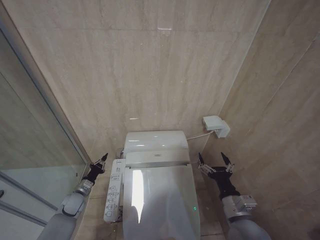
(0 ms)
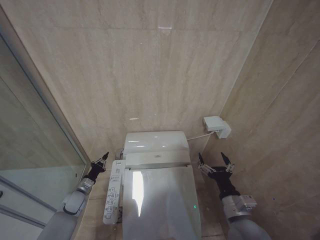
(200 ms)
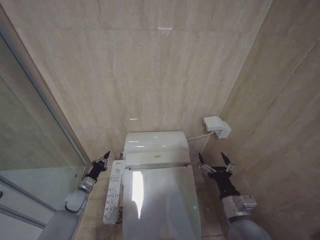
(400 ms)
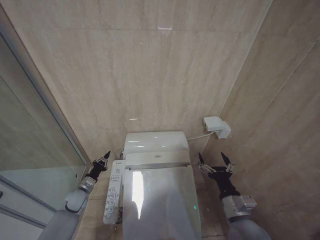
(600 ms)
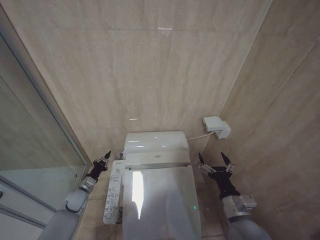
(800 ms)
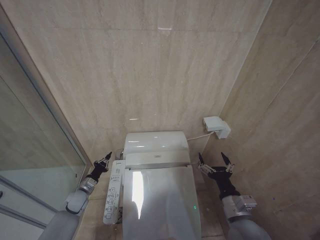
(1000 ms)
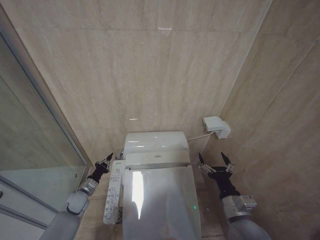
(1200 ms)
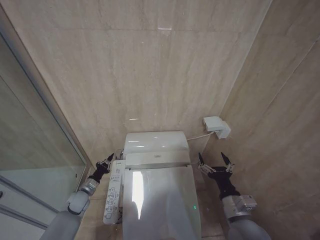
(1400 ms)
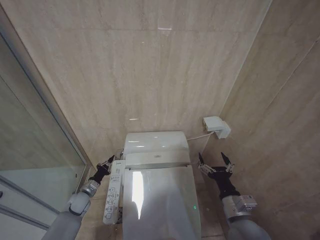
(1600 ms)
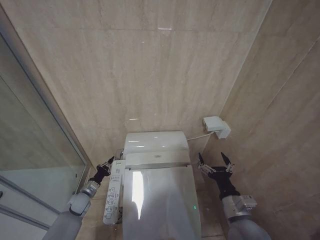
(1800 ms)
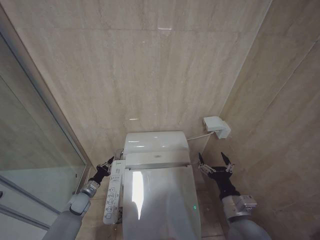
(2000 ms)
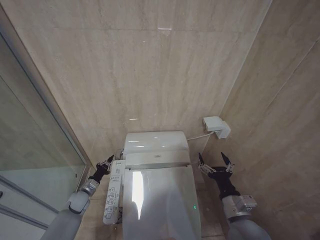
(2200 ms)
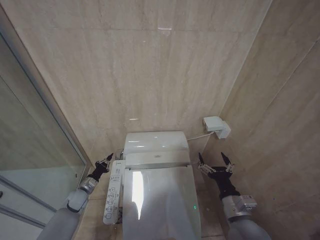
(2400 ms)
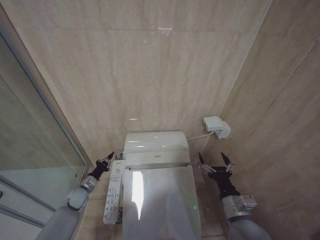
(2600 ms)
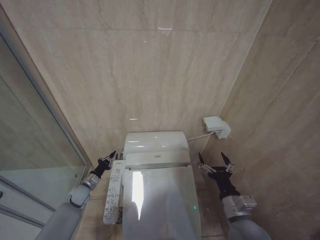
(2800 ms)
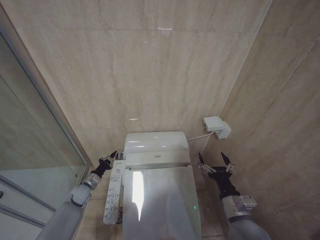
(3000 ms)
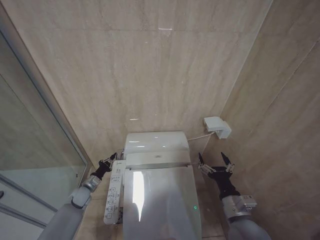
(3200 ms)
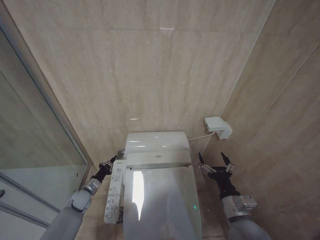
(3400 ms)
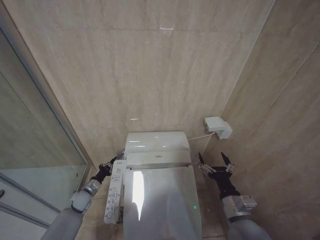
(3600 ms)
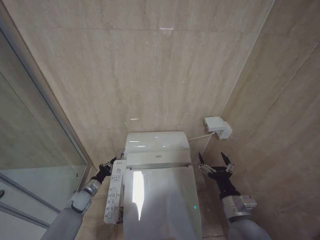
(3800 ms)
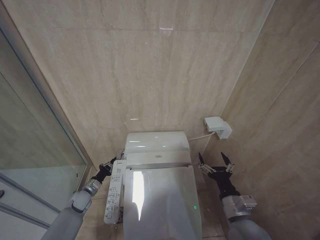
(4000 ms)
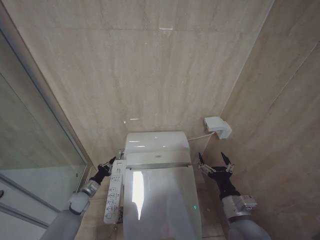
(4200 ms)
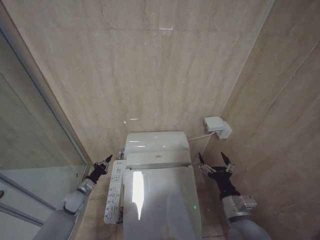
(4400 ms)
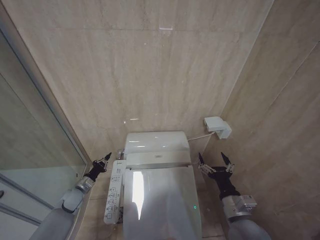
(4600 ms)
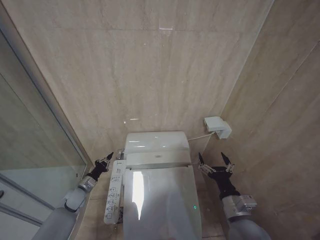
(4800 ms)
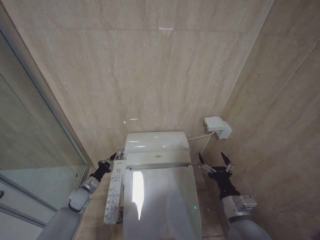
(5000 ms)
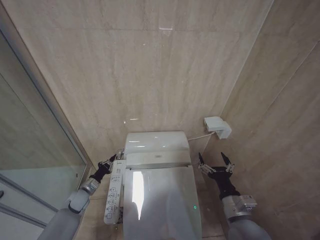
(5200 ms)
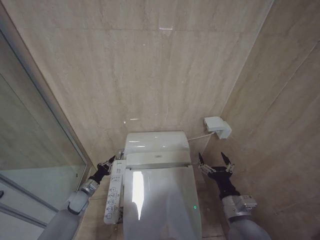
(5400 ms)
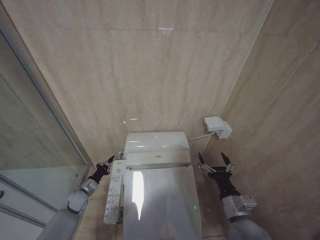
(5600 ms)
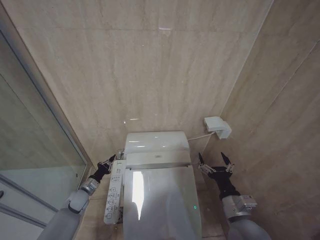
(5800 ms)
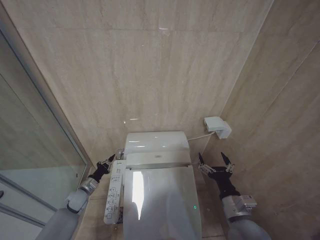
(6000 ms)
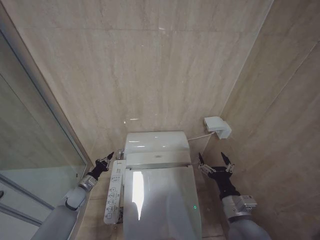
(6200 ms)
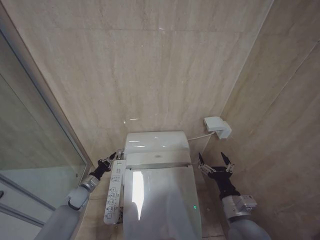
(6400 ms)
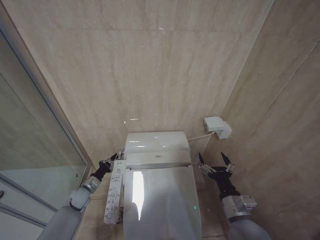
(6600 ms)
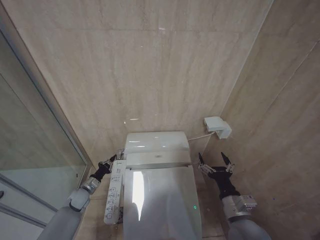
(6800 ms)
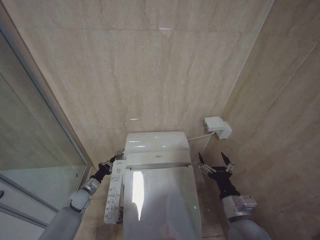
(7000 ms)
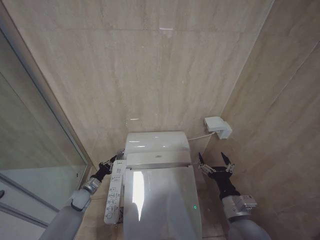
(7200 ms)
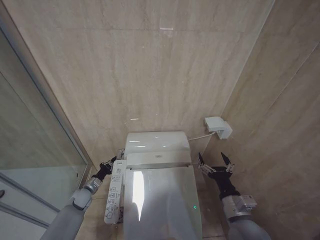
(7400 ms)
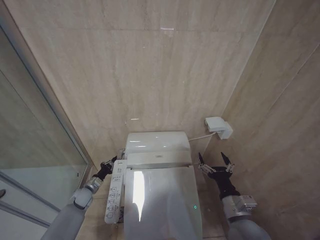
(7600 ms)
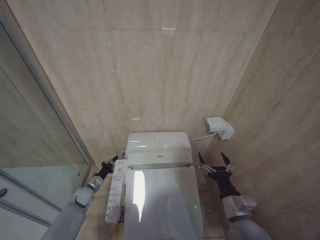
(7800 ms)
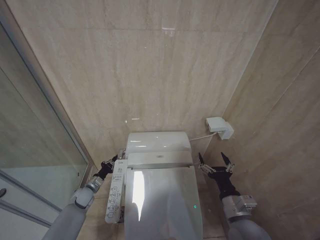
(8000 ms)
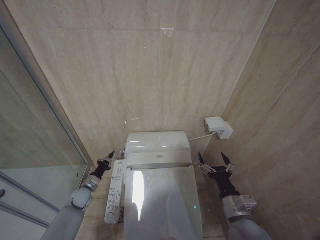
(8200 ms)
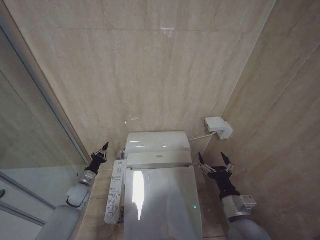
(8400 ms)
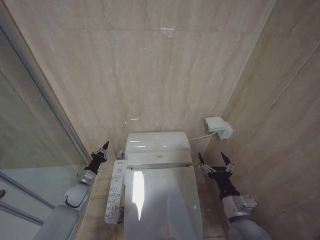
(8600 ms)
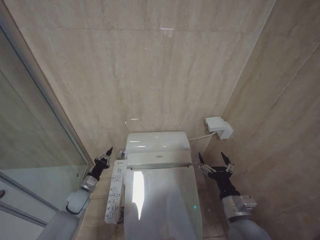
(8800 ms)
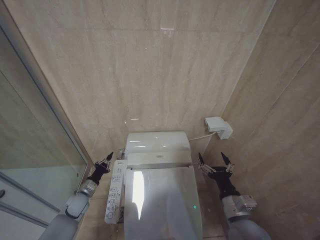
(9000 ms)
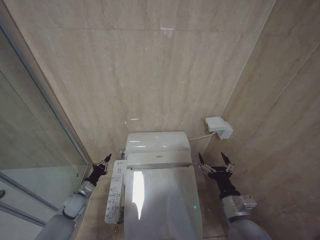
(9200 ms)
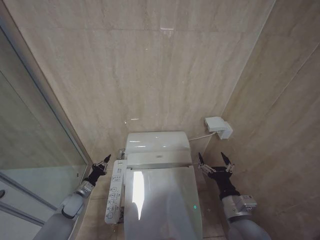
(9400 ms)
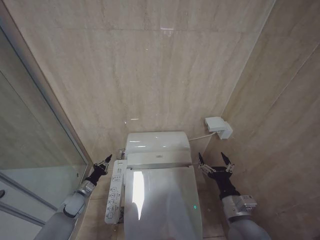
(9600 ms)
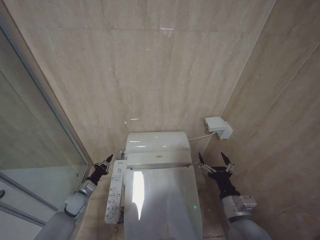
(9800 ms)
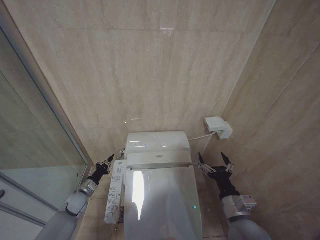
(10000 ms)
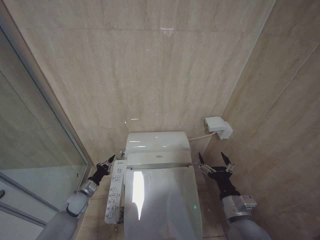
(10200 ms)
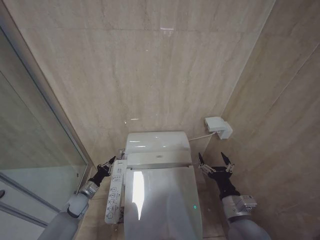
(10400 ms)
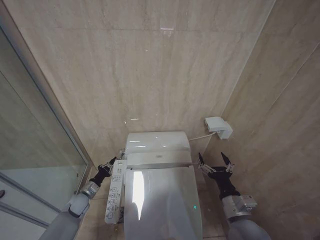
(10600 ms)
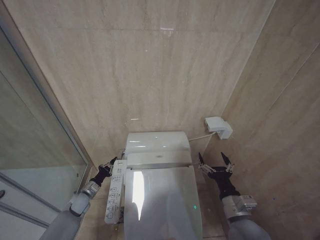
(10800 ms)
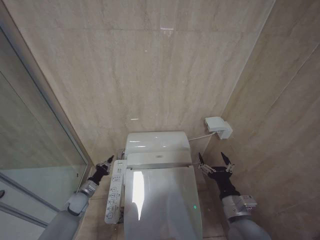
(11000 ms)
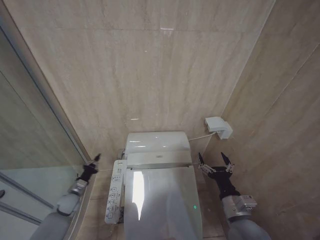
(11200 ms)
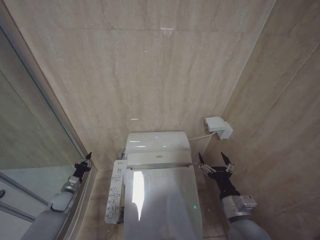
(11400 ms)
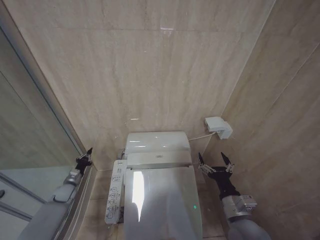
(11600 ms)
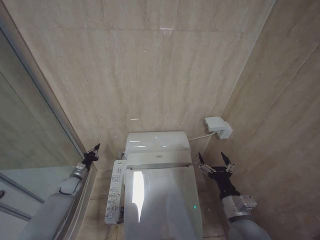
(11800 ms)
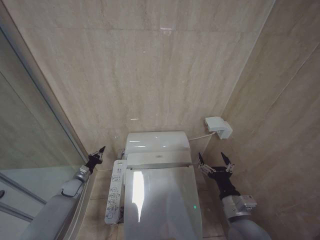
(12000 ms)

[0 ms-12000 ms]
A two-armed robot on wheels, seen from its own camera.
Task of the whole recording: Open the toilet lid, clean the toilet bowl with a toilet brush, close the toilet lid, and flush.
0 ms to 4400 ms: The grippers stay close to where they were, moving slightly.
6000 ms to 7600 ms: There are only small adjustments of the grippers.
7600 ms to 9000 ms: The left gripper ends up roughly 5 cm from where it was.
10400 ms to 12000 ms: The left gripper shifts roughly 5 cm forward.

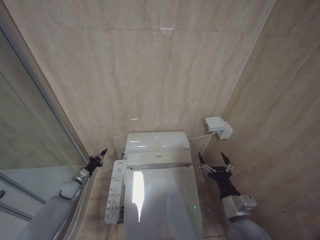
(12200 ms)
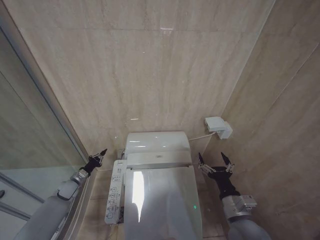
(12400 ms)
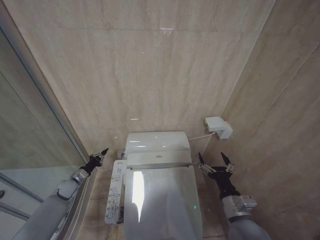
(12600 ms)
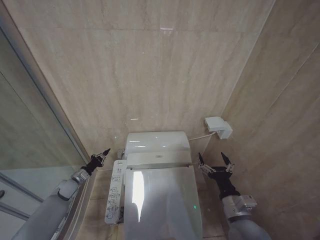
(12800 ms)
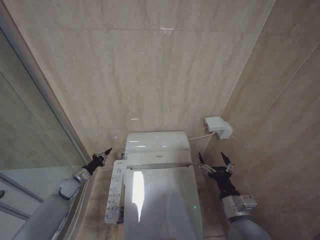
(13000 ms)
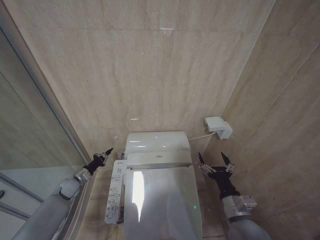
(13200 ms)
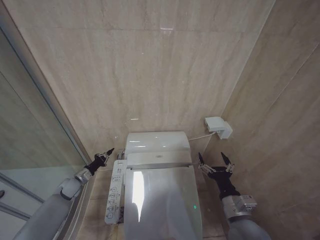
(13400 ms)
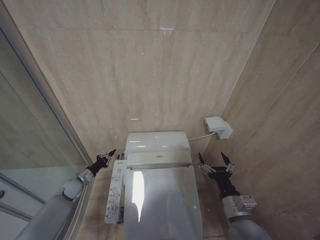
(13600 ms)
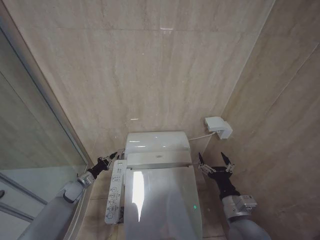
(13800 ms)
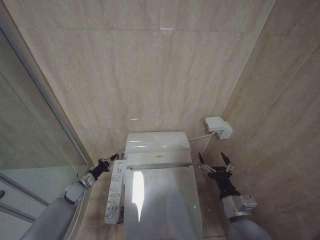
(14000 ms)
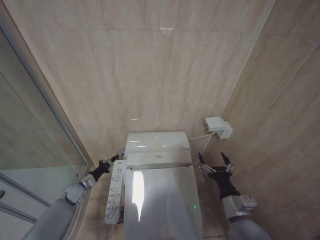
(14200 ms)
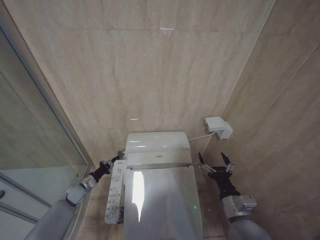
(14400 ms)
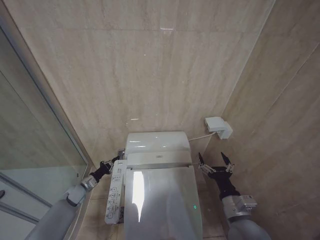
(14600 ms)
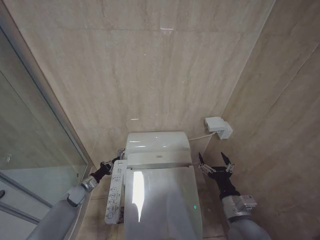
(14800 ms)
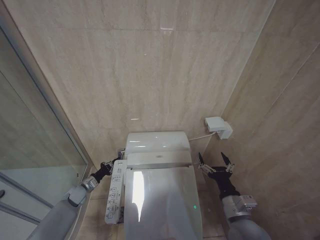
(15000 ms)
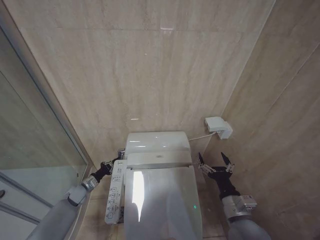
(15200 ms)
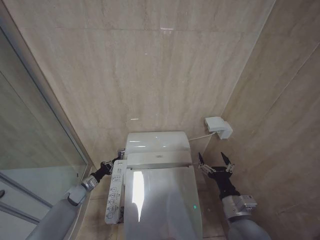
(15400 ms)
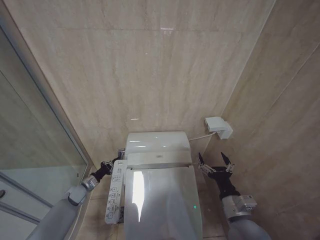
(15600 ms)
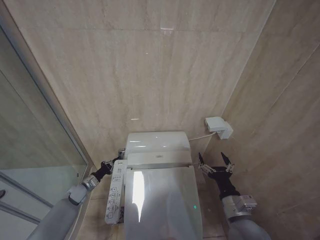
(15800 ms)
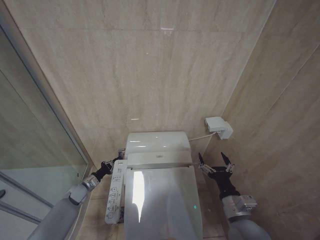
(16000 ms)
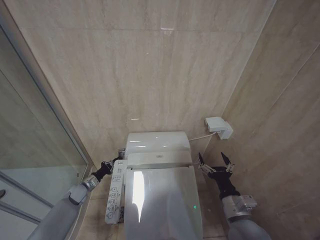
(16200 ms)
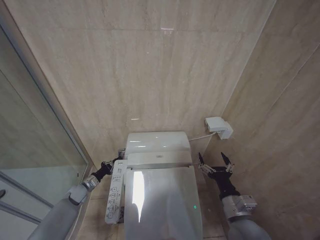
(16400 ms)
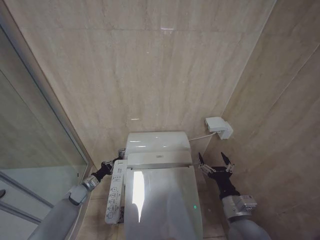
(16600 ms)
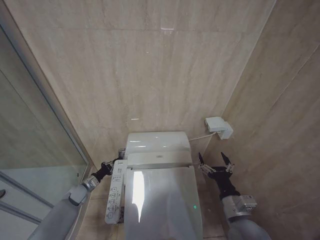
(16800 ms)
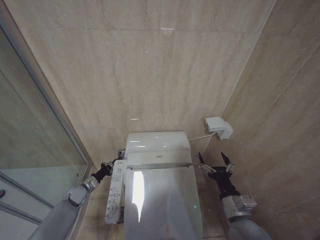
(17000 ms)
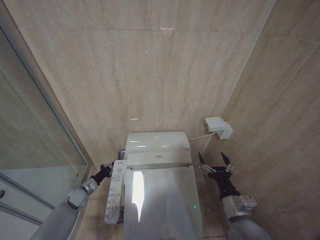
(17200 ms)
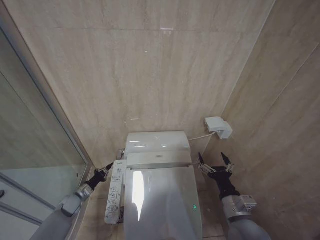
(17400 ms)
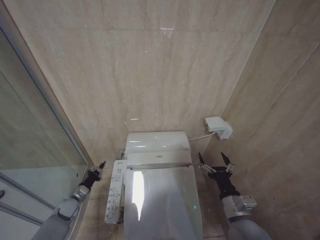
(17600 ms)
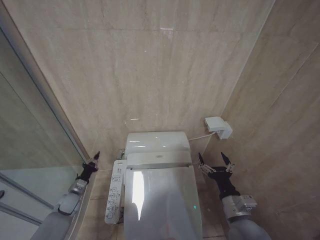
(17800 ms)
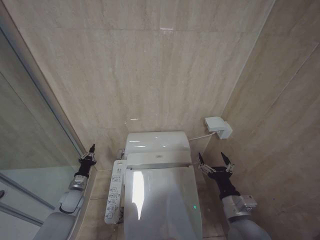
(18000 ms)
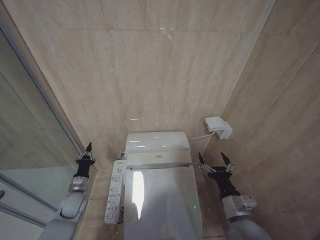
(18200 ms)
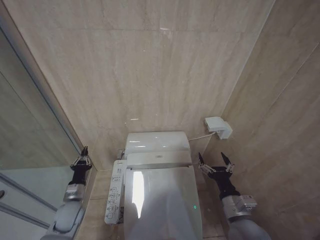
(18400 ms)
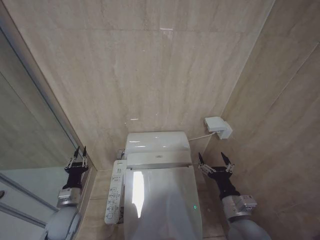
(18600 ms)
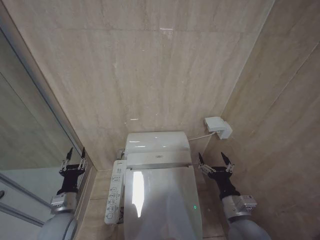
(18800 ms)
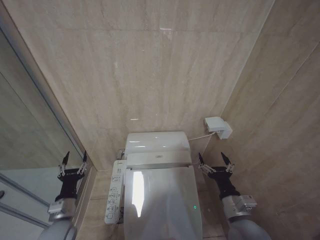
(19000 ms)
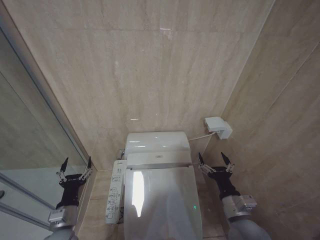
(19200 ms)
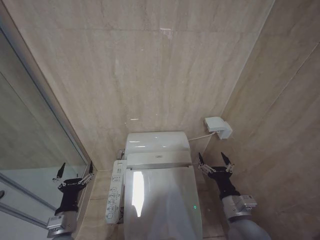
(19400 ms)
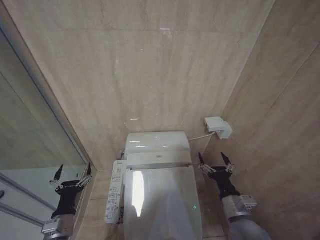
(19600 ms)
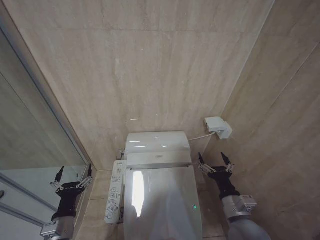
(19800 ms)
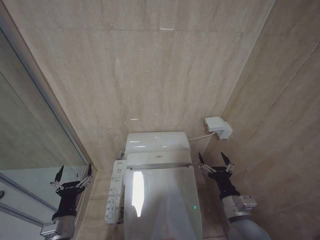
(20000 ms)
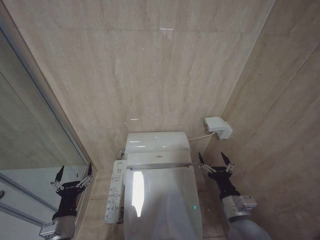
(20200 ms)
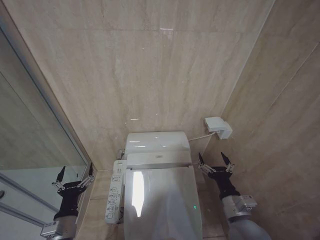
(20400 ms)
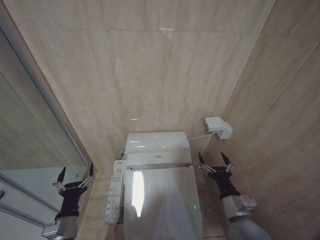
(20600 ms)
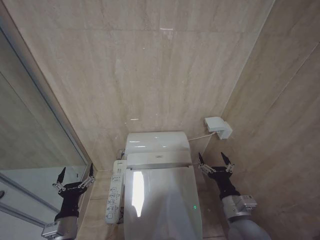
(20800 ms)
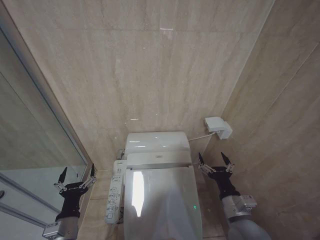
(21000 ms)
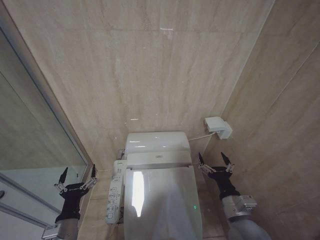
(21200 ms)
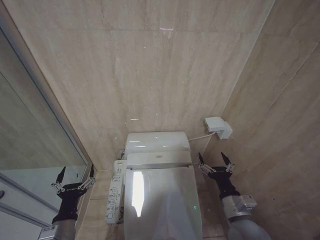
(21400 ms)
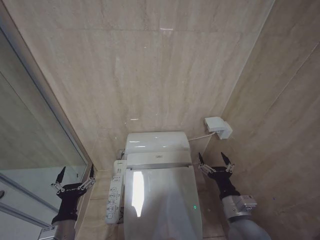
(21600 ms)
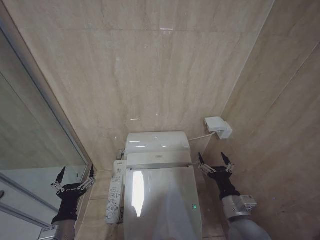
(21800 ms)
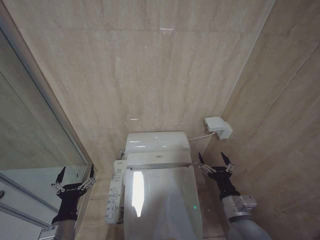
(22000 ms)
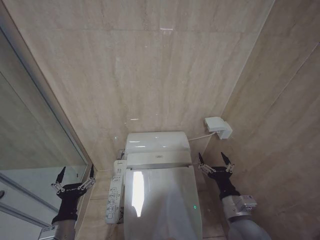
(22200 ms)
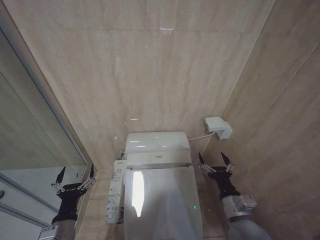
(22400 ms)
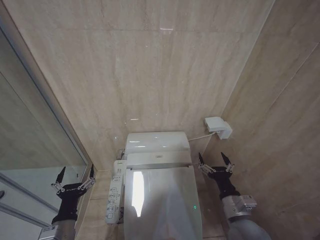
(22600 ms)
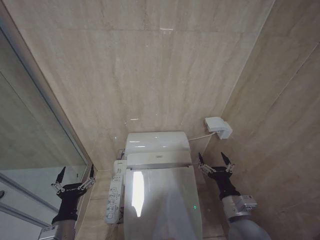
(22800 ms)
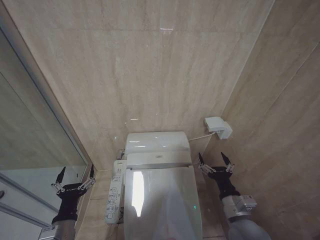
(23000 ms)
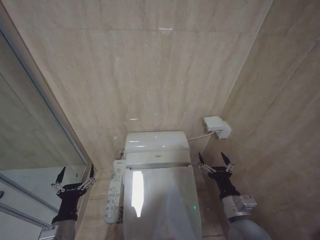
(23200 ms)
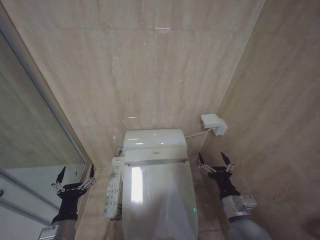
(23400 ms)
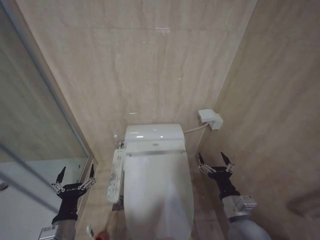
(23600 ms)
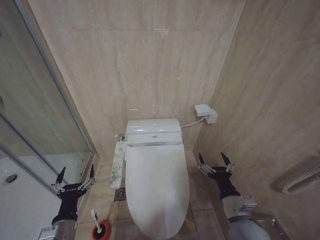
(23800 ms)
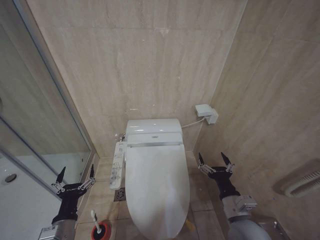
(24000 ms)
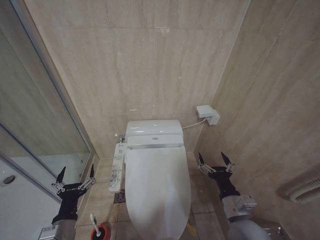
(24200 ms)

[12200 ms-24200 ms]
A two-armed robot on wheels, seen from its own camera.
Task of the whole recording: Open the toilet lid, clean the toilet bowl with a toilet brush, close the toilet lid, and flush.
13800 ms to 15200 ms: The grippers stay close to where they were, moving slightly.
15200 ms to 16600 ms: Both grippers stay put.
16600 ms to 18200 ms: The left gripper goes about 5 cm backward and upward.
18200 ms to 19800 ms: The left gripper heads backward and upward, covering approximately 20 cm, and opens.
19800 ms to 21200 ms: There are only small adjustments of the grippers.
21200 ms to 24200 ms: The two grippers keep their place.
